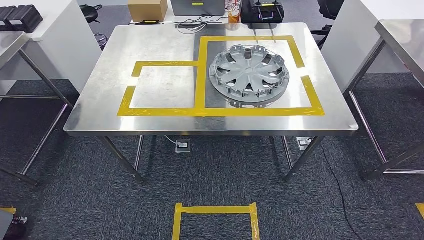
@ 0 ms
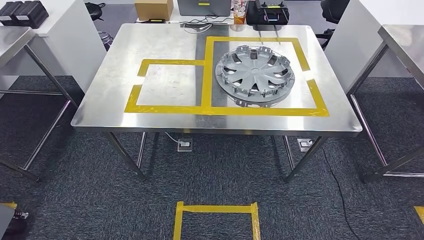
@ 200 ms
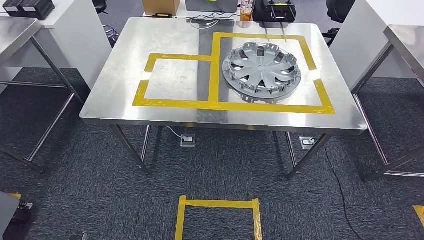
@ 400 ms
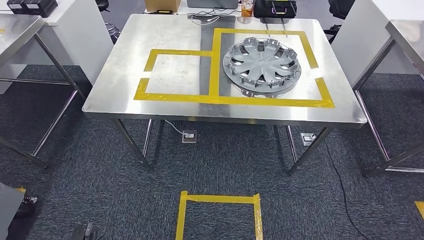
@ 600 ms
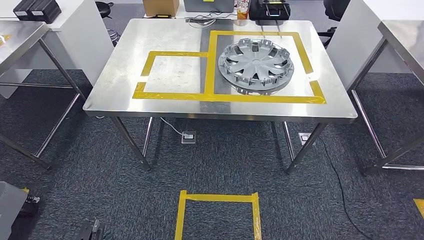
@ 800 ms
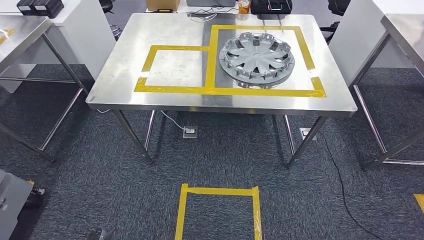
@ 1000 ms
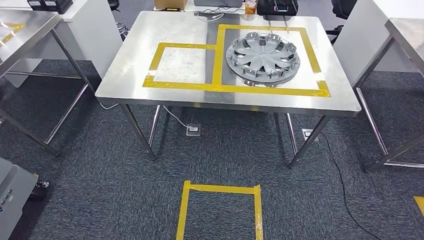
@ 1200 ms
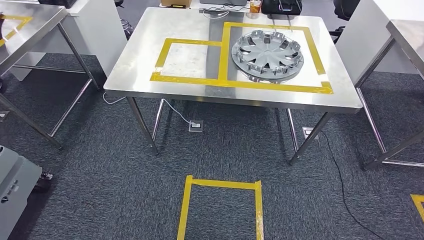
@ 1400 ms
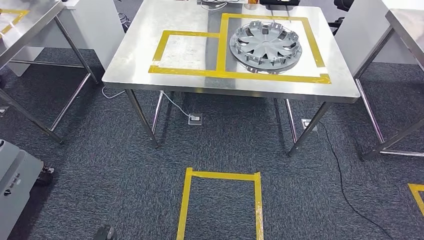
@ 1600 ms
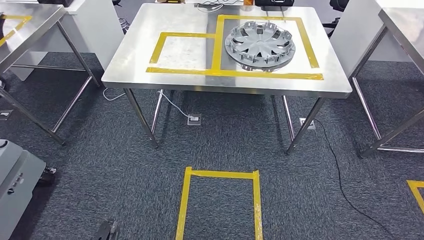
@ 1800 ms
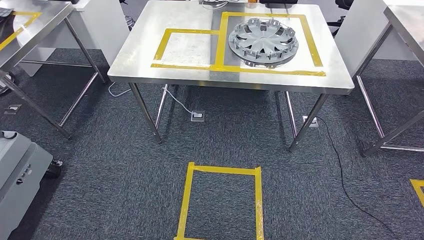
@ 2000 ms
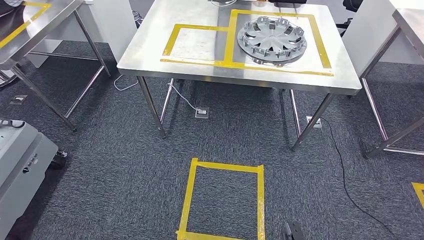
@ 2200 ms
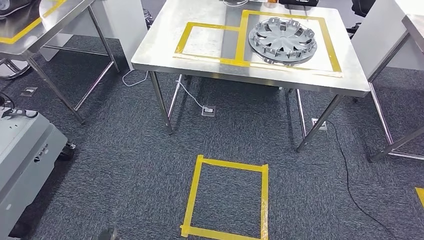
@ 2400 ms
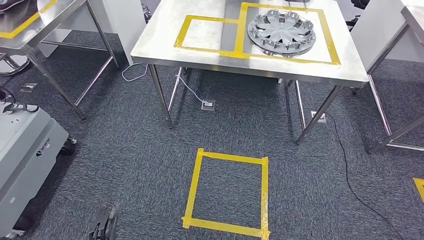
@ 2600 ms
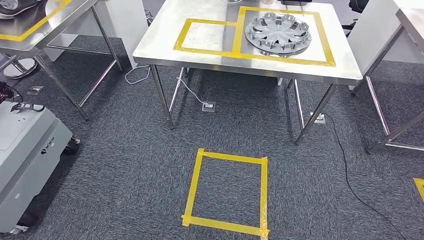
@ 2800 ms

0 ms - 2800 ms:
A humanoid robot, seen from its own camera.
Step, 0 ms - 2800 ms: Return to the initial position at the workbench.

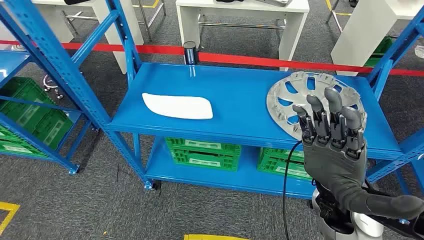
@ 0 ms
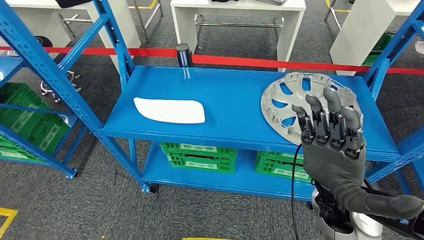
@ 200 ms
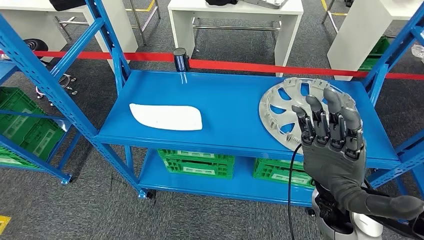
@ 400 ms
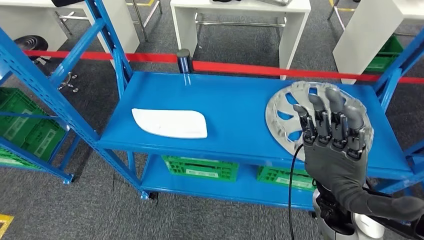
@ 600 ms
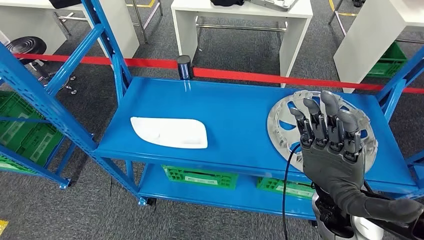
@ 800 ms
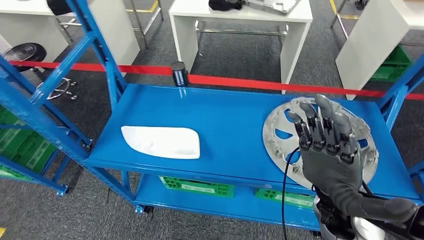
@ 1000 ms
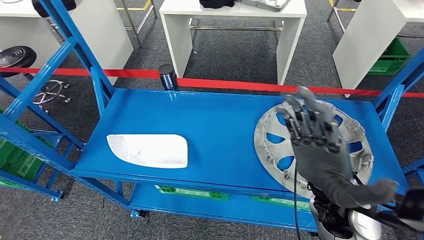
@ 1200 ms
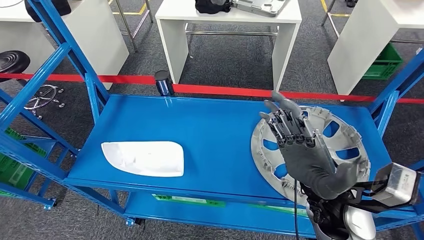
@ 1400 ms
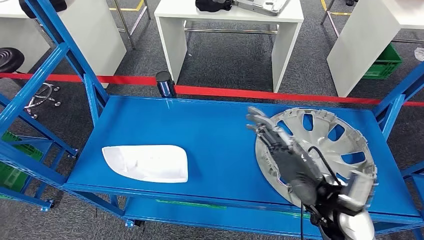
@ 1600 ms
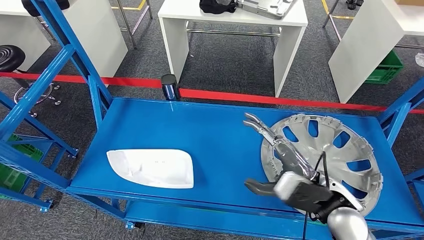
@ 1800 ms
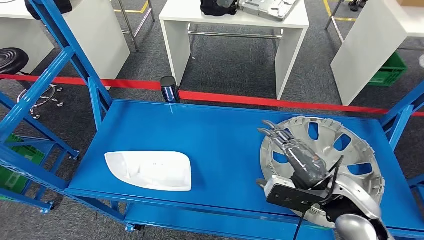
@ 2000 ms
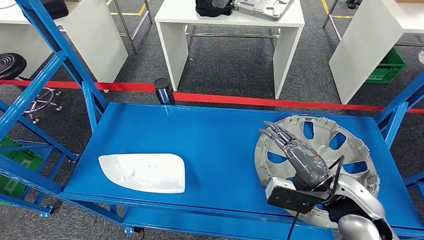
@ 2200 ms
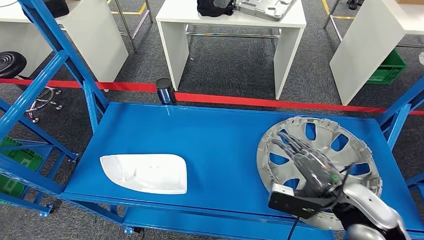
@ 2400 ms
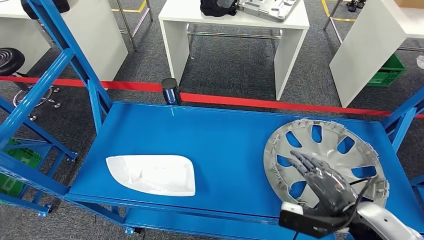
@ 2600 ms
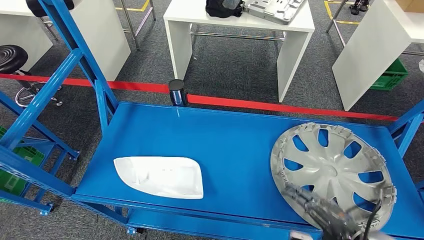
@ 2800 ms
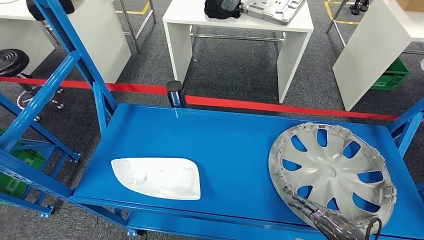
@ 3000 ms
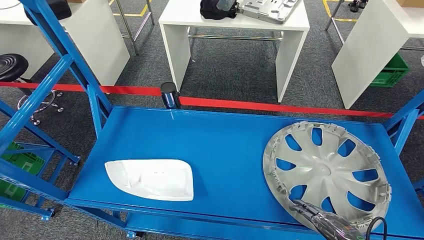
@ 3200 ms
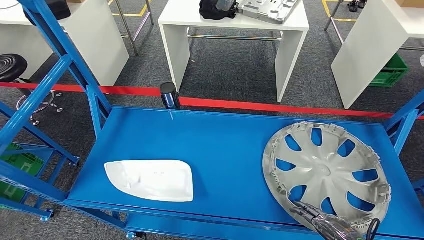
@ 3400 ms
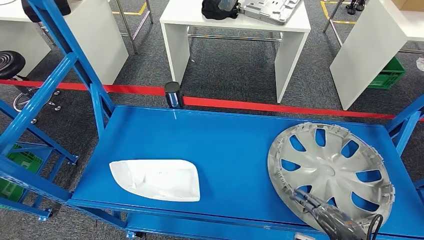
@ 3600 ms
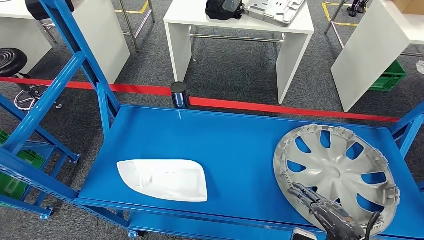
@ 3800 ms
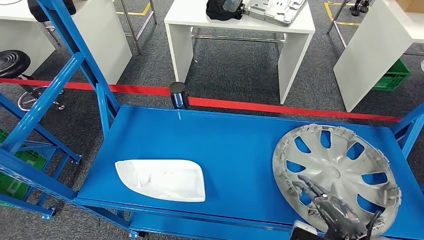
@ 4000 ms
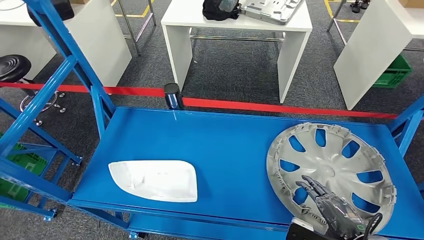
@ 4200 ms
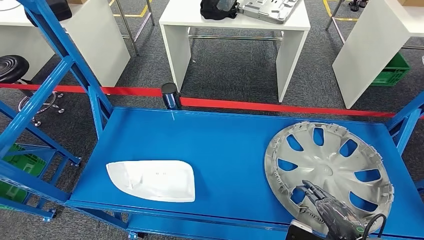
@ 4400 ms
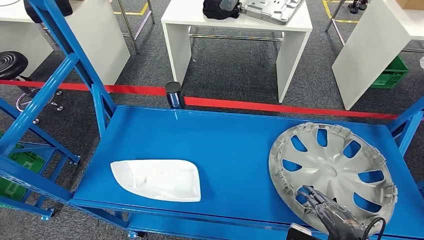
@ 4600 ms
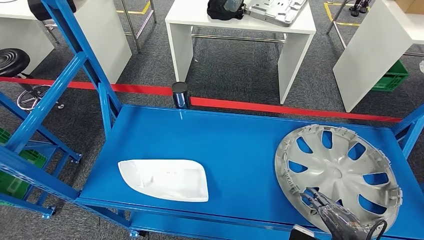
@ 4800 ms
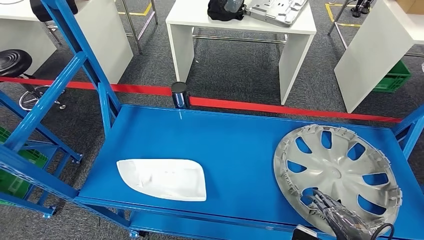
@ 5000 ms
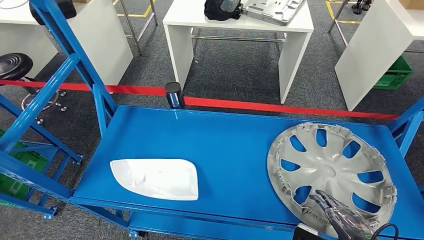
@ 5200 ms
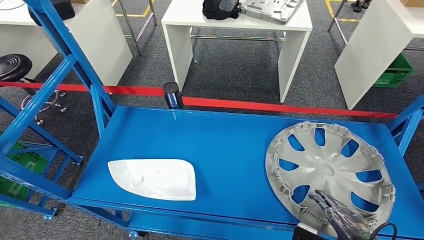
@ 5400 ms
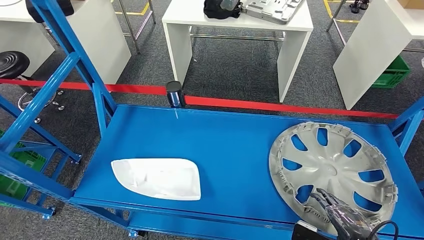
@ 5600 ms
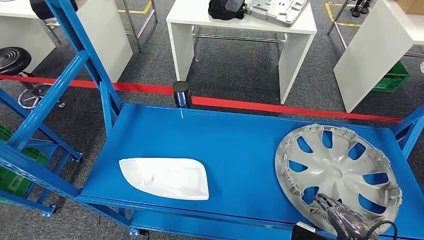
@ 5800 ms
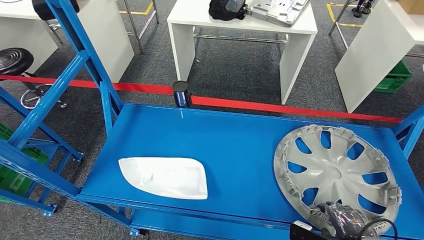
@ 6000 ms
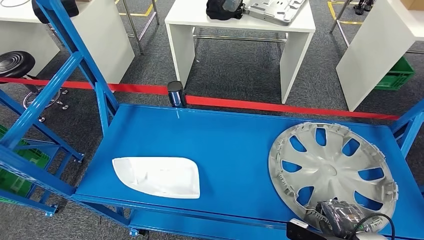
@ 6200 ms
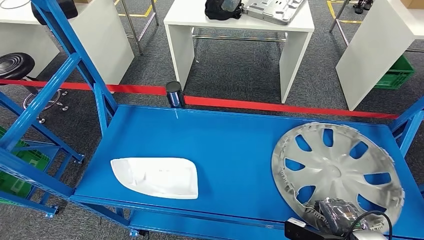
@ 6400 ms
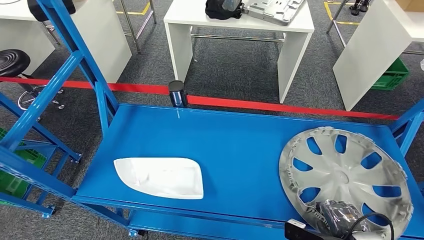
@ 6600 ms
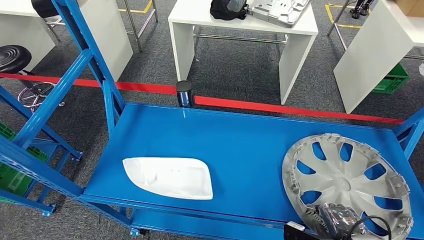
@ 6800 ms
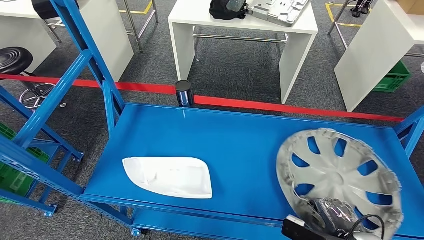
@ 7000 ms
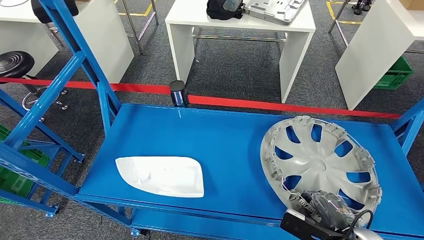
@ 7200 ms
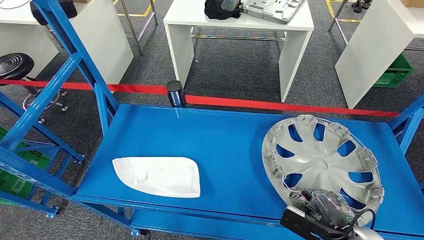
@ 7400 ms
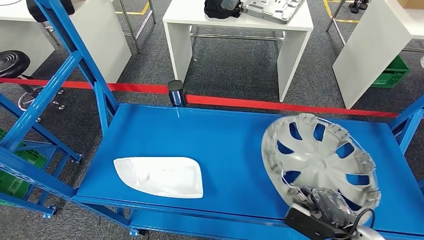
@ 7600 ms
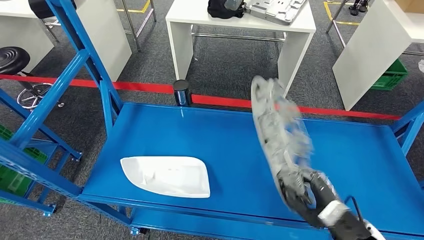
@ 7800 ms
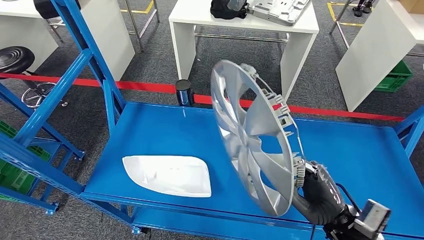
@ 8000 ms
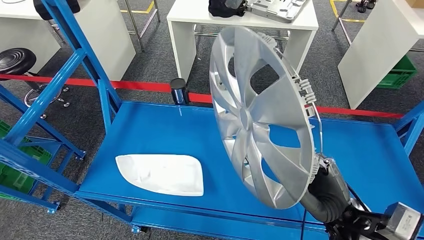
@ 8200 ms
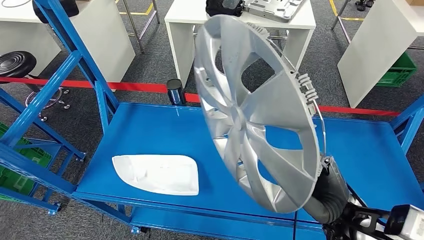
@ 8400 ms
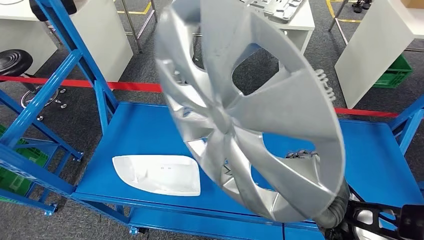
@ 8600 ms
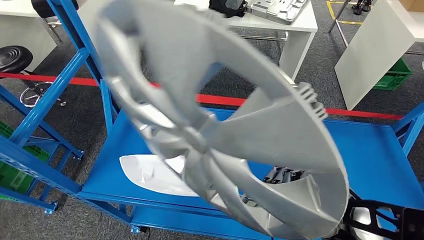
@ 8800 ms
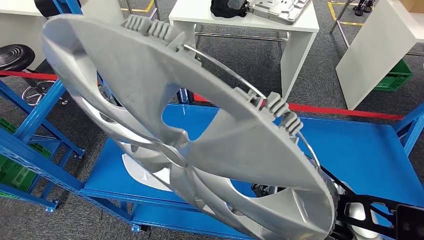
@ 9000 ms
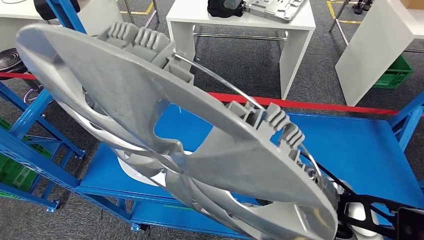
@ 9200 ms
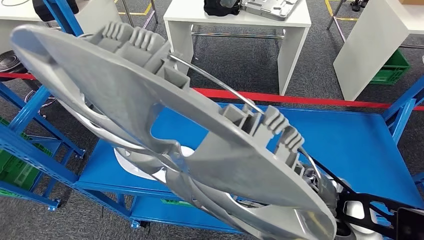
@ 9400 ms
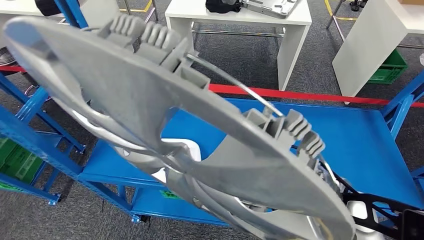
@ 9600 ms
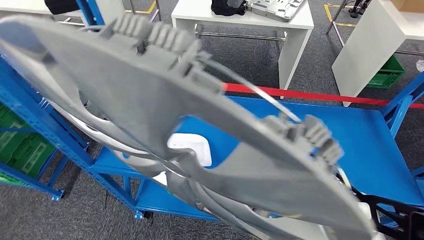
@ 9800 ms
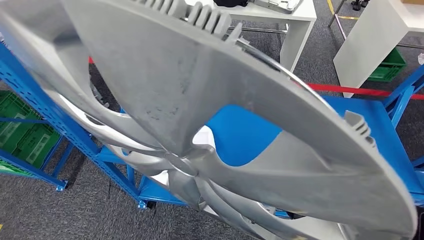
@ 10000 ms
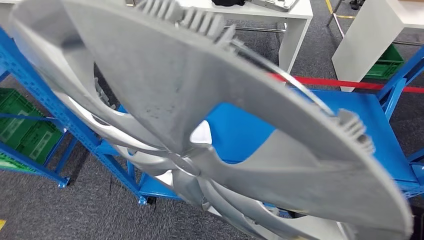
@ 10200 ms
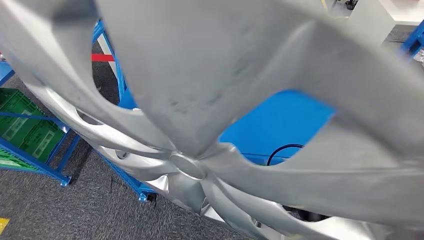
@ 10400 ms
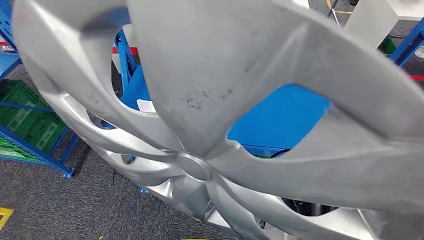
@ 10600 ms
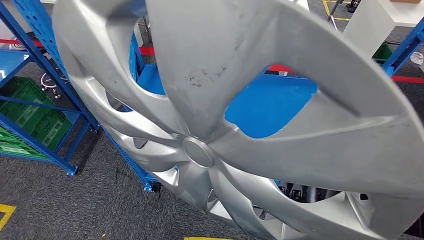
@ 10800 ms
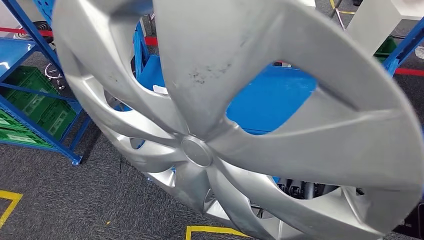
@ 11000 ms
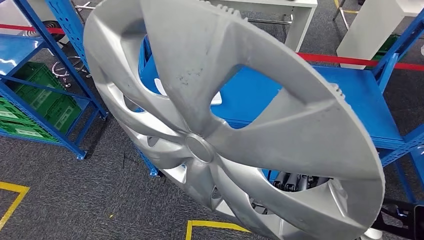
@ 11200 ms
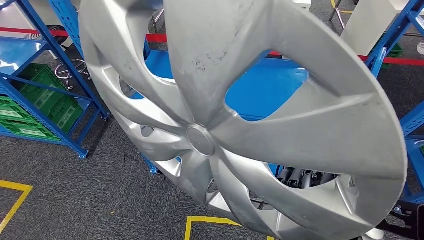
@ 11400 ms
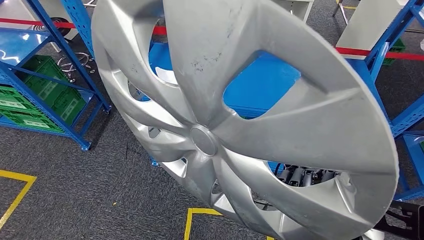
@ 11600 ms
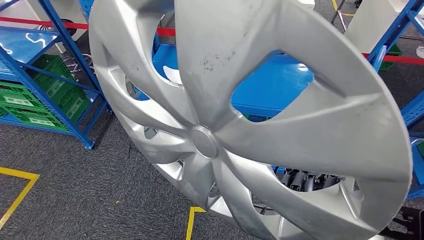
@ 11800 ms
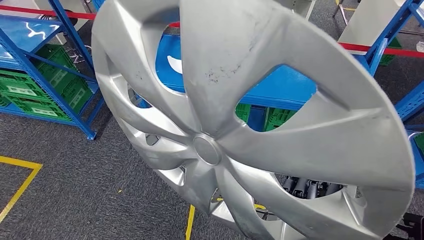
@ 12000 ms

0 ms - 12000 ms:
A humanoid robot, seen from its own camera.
Step, 0 ms - 10000 ms: Pick up the small component from the shelf.

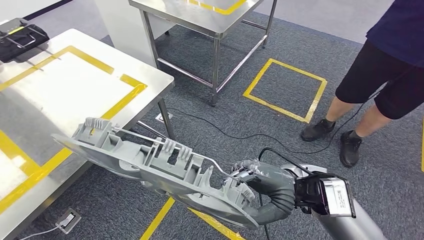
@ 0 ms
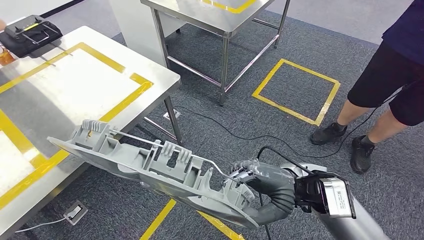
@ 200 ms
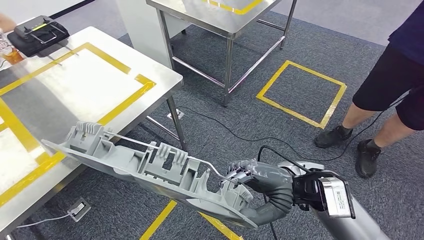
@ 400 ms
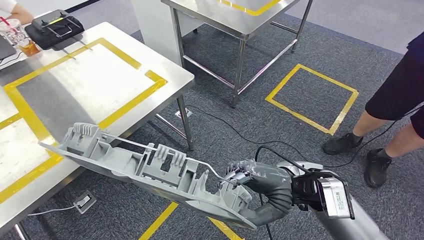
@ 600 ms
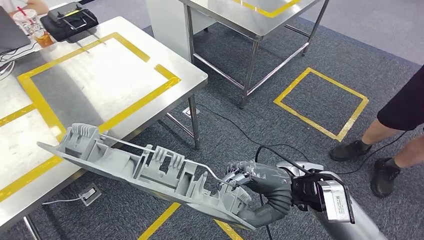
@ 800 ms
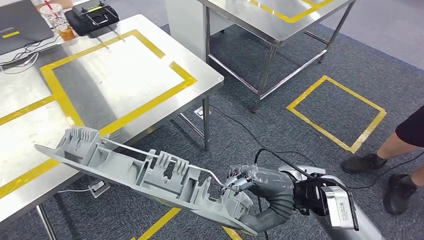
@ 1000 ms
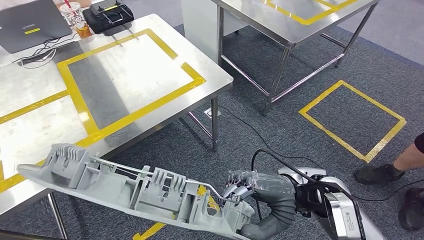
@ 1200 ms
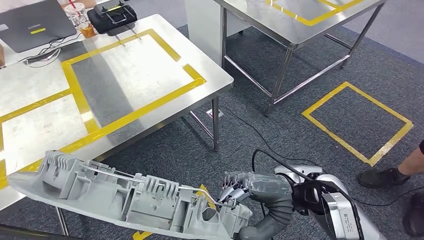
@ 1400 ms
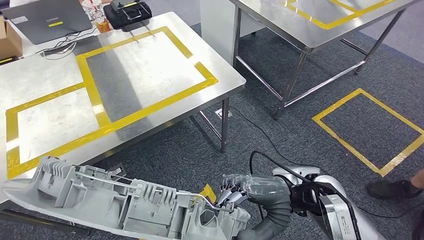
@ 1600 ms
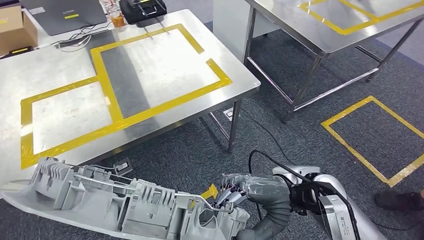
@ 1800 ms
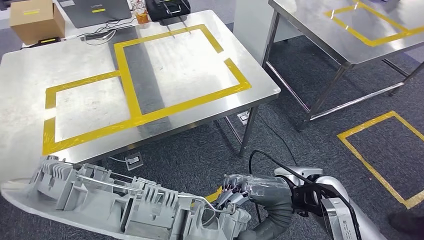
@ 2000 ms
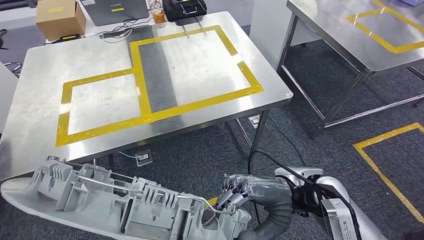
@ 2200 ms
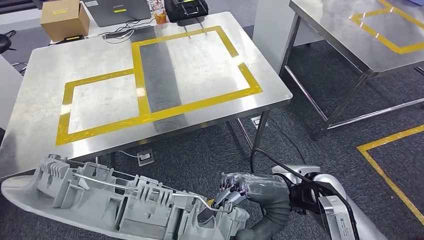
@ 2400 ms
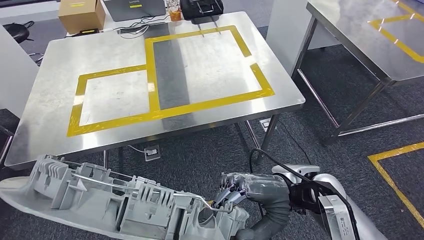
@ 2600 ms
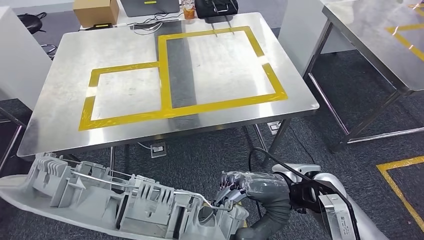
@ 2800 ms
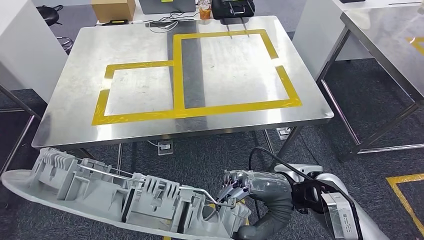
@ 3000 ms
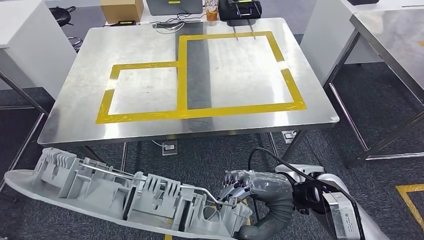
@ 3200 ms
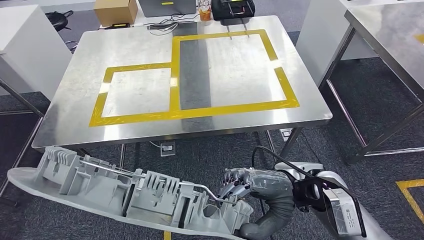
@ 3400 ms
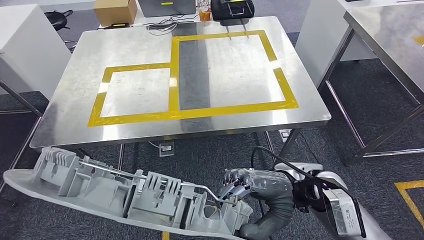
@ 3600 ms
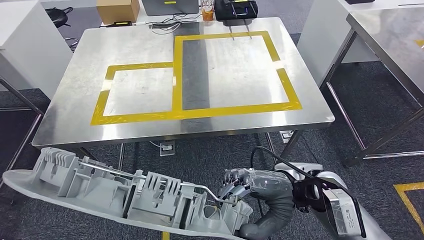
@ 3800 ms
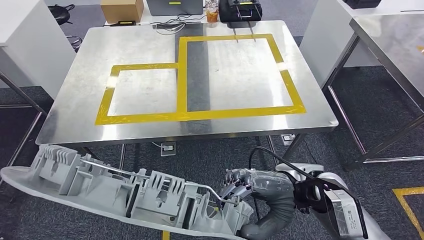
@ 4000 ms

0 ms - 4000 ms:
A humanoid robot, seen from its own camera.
Step, 0 ms - 2800 ms: Move the small component to the workbench.
